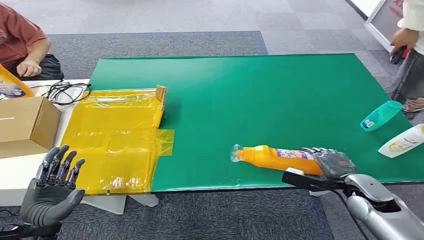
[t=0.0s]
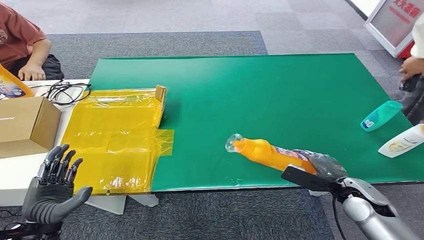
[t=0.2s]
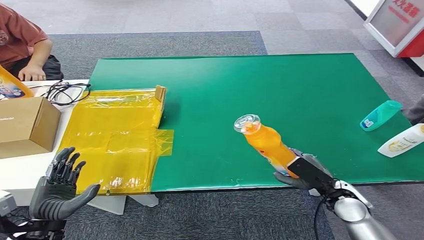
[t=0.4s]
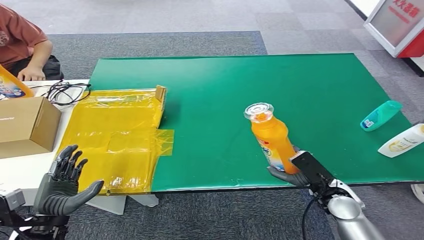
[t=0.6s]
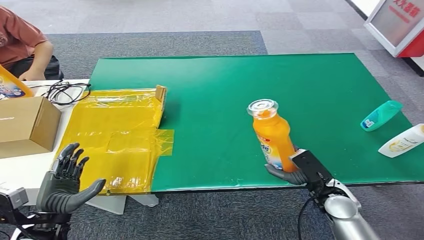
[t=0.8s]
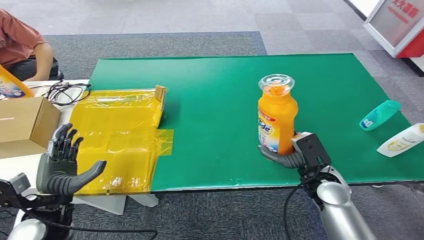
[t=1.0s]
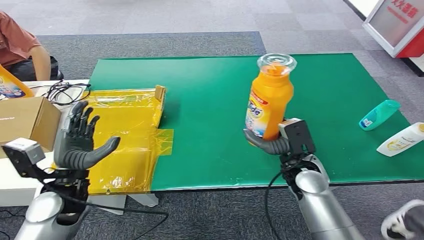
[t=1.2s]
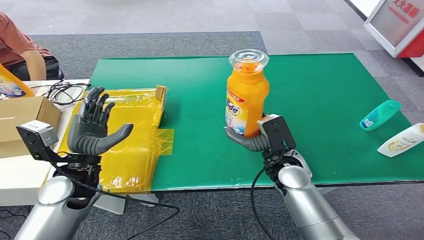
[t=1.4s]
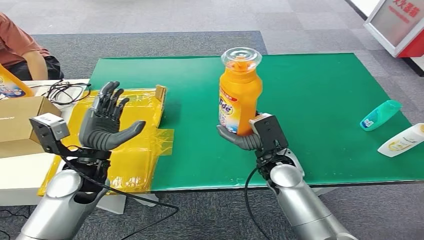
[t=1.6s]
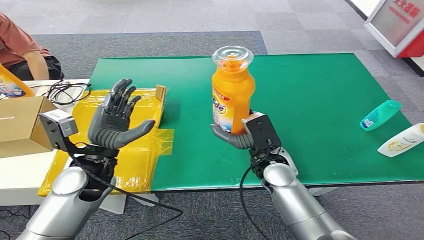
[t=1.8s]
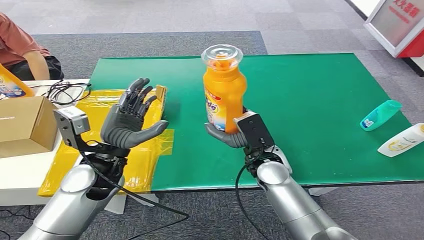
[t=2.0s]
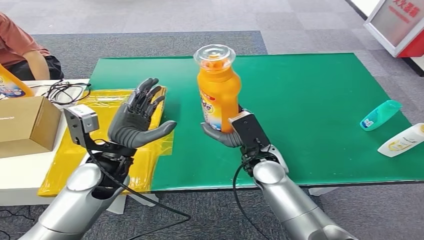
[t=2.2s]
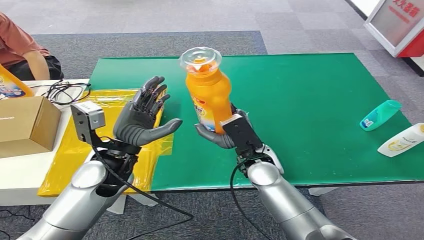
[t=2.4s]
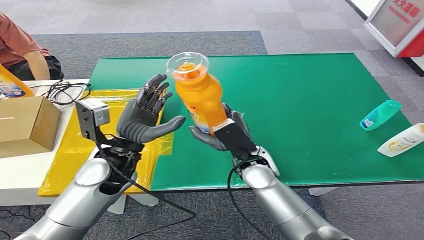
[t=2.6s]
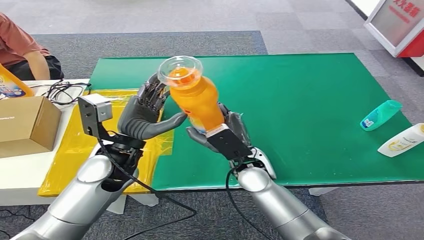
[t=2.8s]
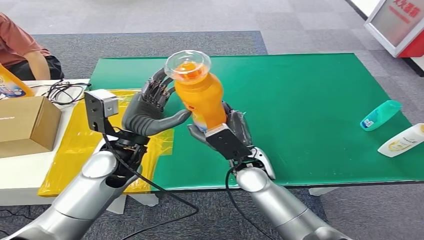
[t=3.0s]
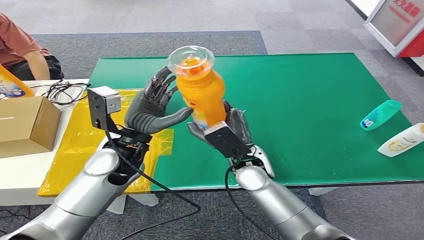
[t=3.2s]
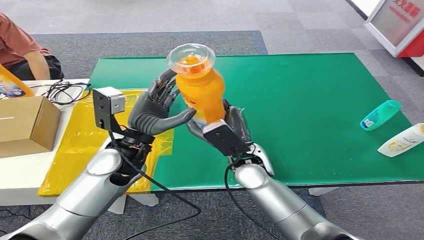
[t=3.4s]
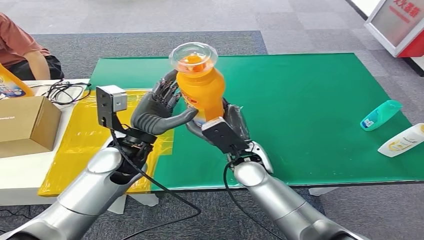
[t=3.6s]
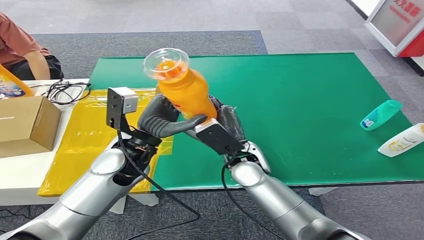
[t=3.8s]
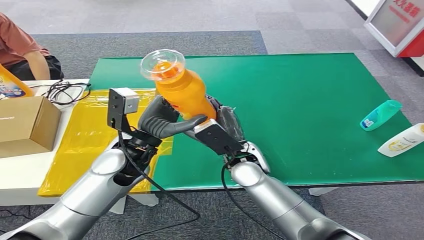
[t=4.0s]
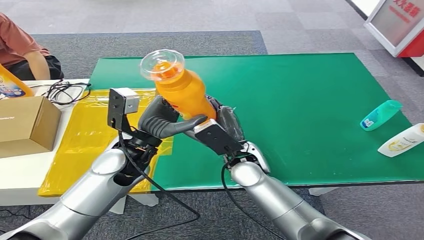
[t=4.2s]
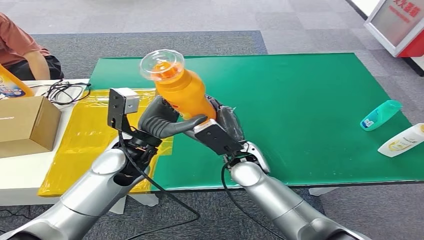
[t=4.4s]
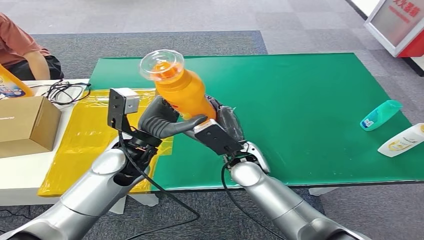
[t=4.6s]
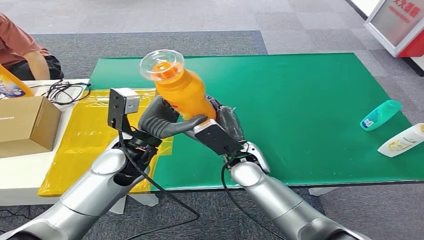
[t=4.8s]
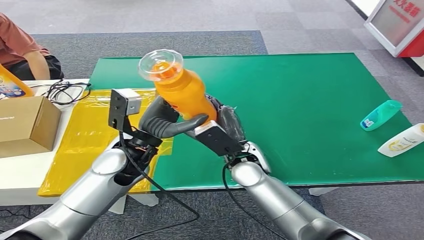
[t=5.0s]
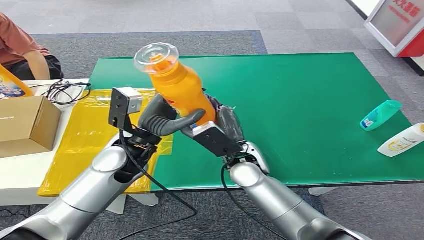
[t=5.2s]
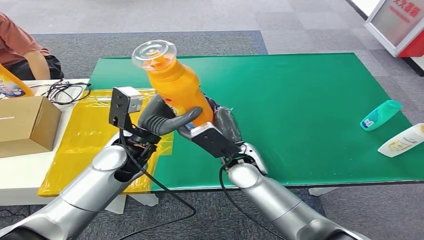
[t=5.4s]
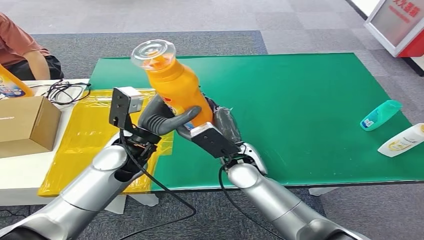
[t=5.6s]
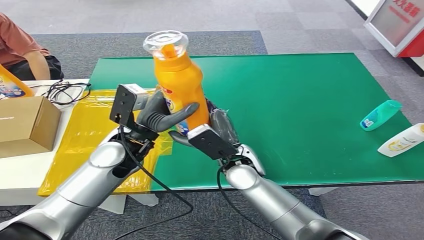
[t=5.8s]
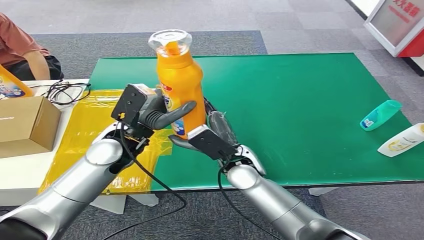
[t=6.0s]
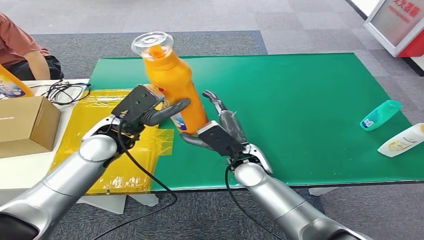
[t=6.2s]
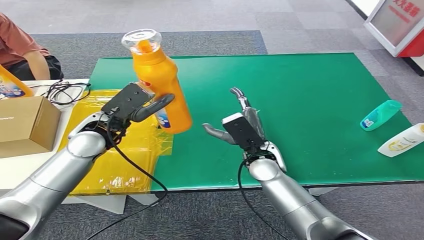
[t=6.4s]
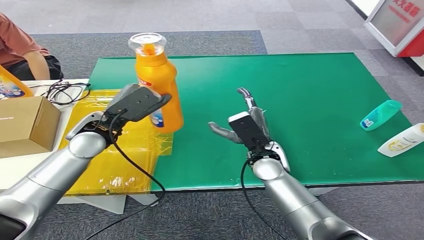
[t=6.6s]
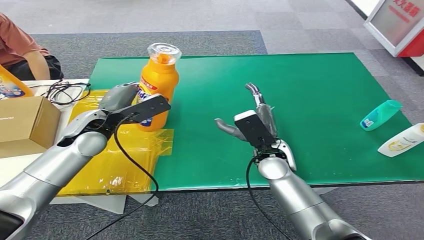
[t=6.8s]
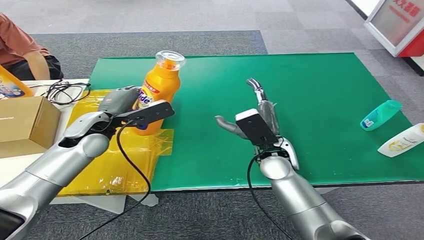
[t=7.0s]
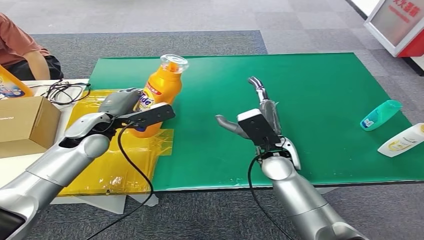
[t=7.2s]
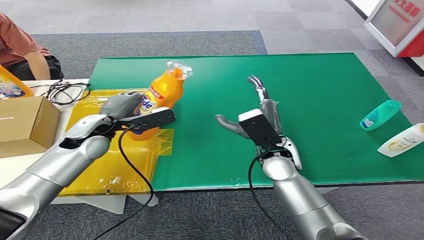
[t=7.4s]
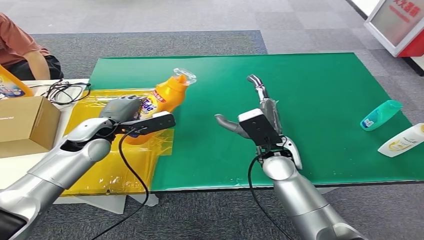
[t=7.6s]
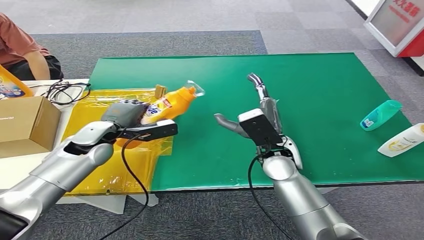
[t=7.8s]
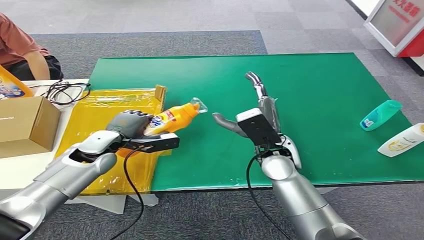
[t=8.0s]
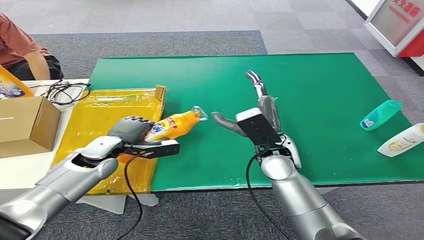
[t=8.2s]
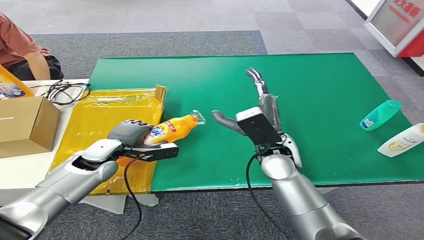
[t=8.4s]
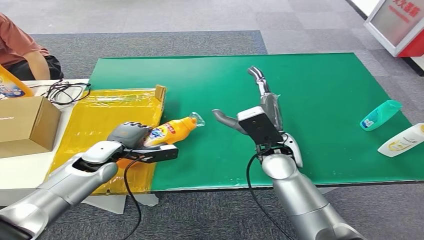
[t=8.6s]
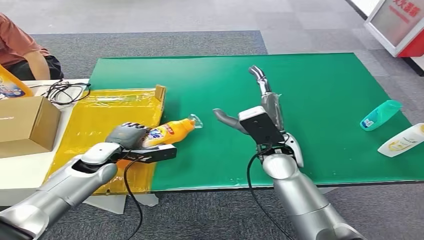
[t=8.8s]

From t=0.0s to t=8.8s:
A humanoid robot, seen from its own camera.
Step, from t=0.0s to t=1.8s: Pick up the bottle from the table.
Step, from t=2.0s to t=8.6s: Turn the bottle to the front side.
From t=3.0s to t=5.8s: The hands move only a little.
From t=7.4s to t=8.8s: The left hand goes some 10 cm downward.
